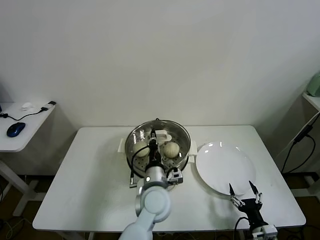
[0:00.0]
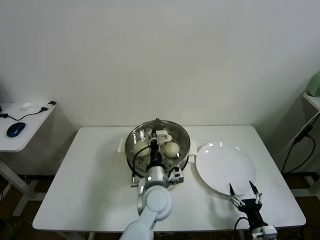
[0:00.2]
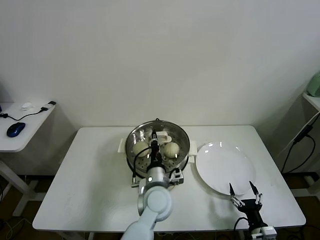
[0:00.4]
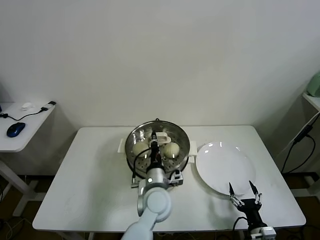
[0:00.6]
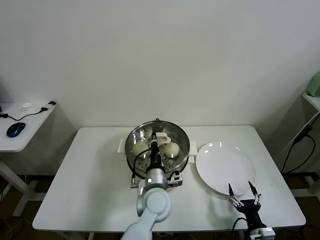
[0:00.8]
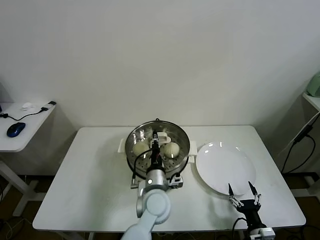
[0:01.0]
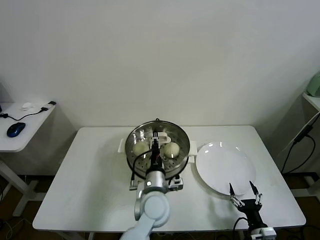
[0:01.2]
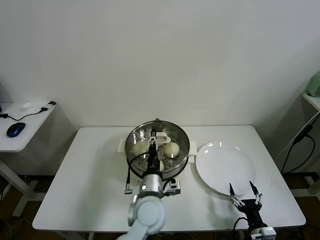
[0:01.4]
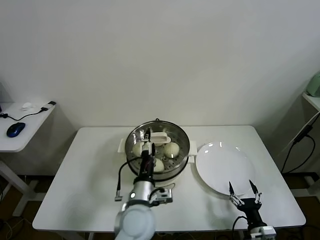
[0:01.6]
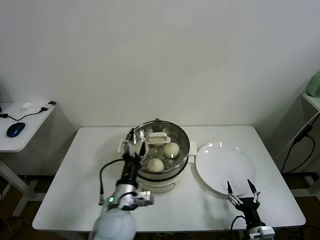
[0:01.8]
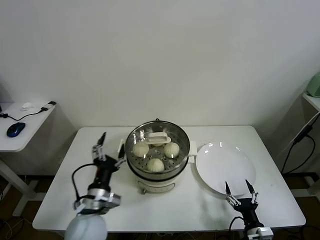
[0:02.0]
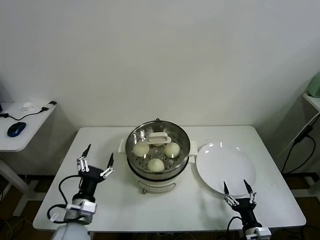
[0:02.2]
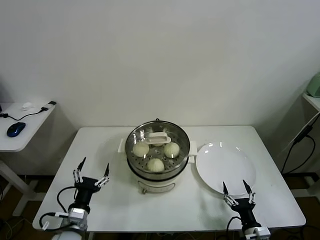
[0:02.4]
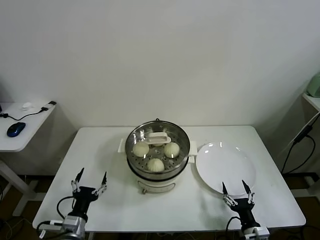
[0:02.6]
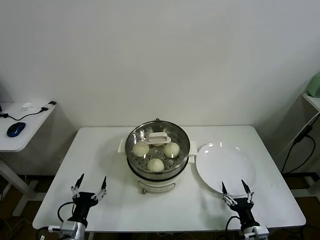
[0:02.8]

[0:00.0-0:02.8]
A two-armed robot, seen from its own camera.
Task of the whole recording: take steamed baozi put them in steamer.
0:00.0 to 0:01.4: The left gripper opens its fingers.
0:01.4 to 0:02.8: The left gripper is displaced to the left and backward by roughly 30 cm, and opens its fingers.

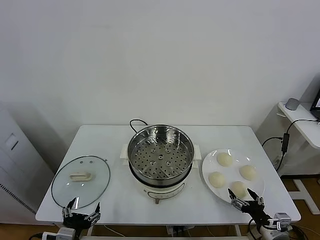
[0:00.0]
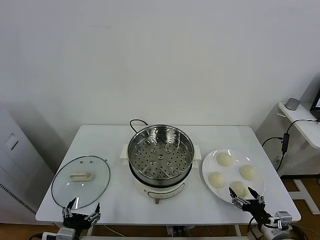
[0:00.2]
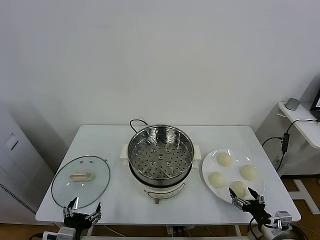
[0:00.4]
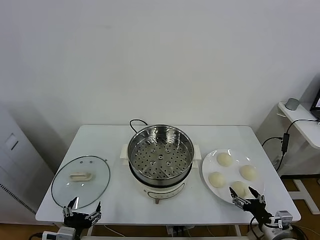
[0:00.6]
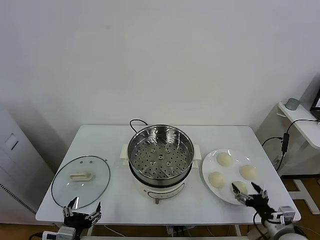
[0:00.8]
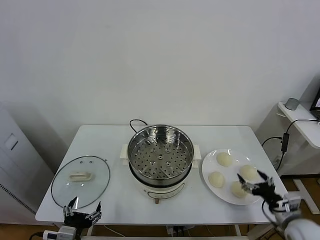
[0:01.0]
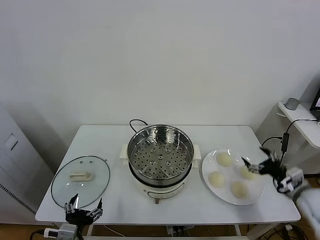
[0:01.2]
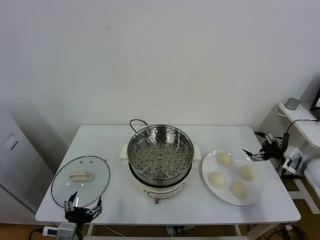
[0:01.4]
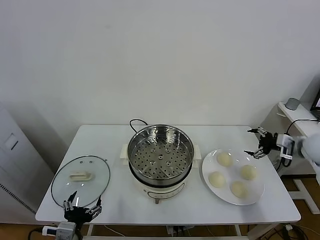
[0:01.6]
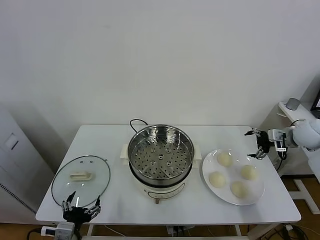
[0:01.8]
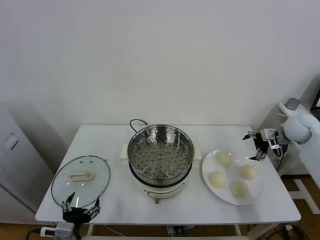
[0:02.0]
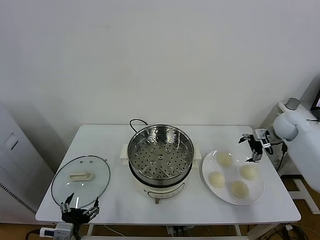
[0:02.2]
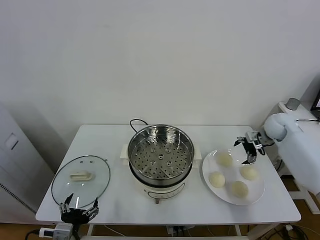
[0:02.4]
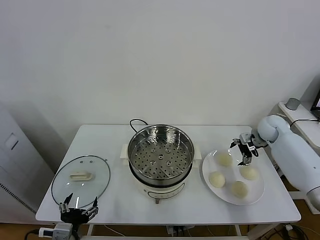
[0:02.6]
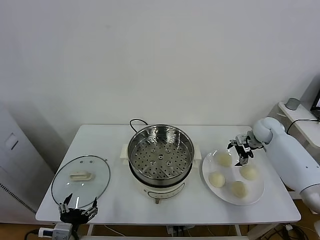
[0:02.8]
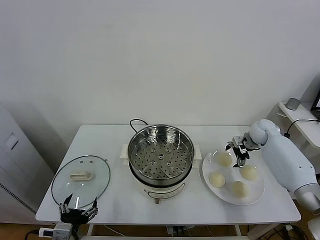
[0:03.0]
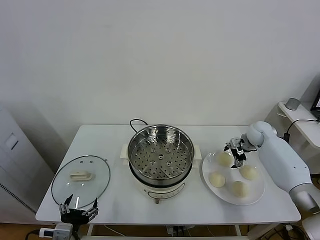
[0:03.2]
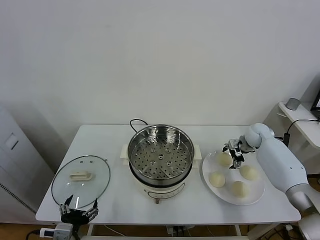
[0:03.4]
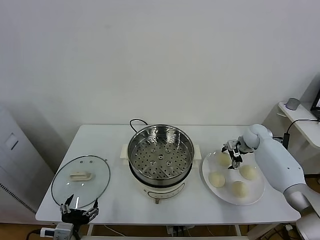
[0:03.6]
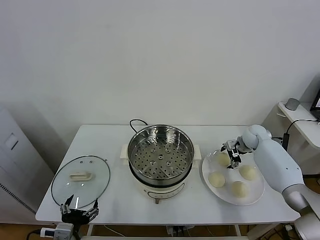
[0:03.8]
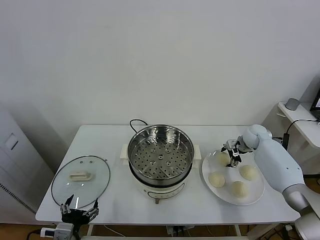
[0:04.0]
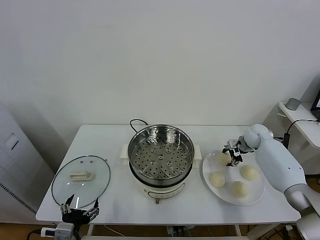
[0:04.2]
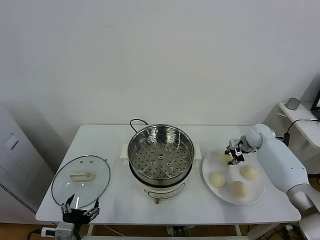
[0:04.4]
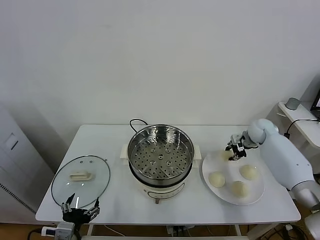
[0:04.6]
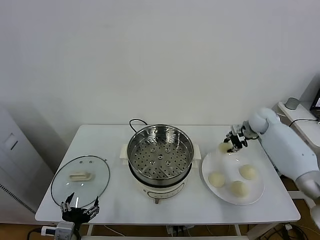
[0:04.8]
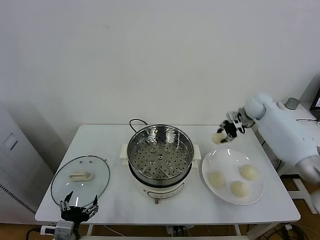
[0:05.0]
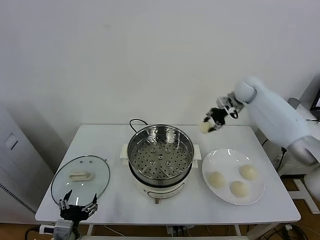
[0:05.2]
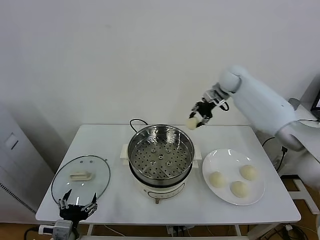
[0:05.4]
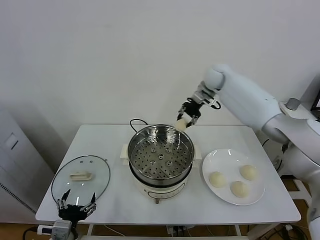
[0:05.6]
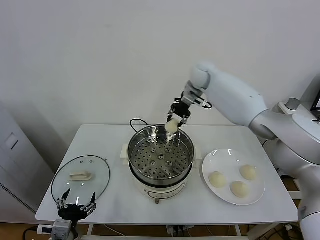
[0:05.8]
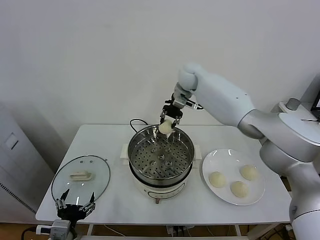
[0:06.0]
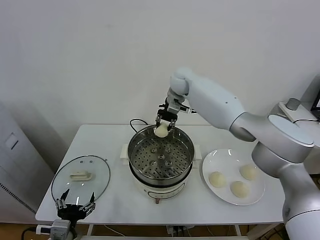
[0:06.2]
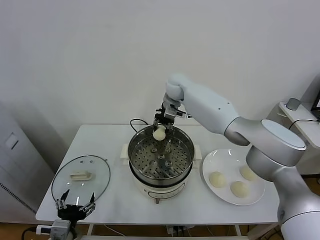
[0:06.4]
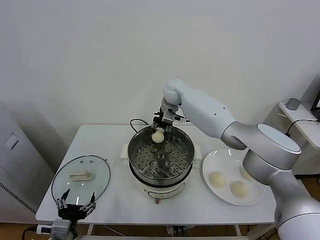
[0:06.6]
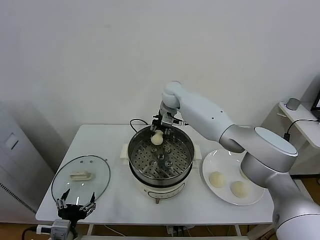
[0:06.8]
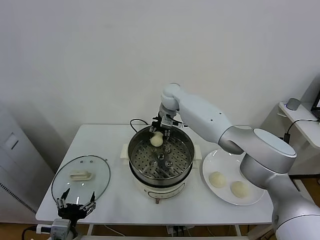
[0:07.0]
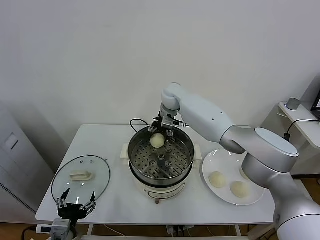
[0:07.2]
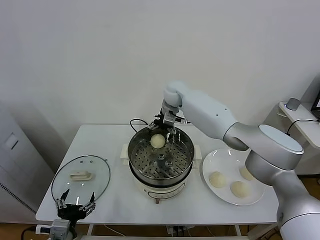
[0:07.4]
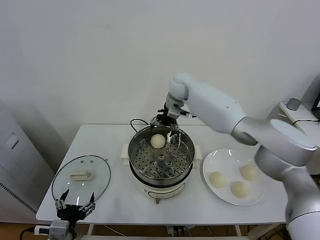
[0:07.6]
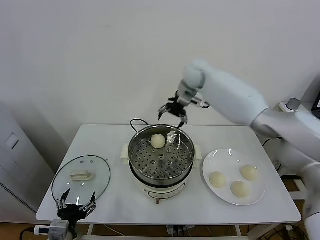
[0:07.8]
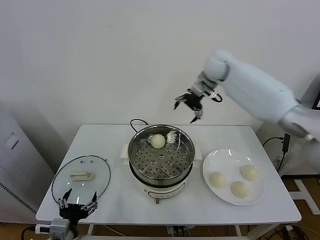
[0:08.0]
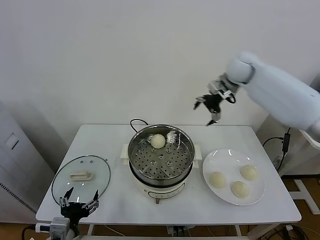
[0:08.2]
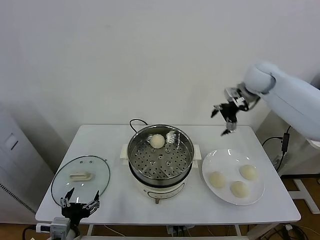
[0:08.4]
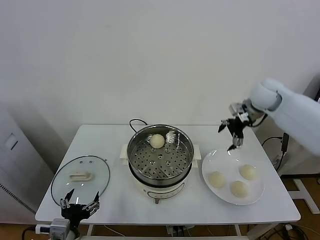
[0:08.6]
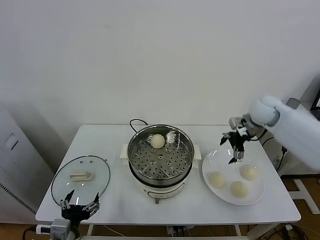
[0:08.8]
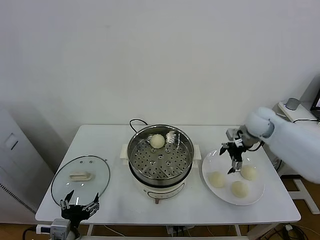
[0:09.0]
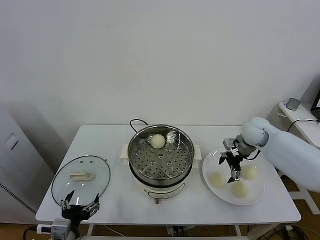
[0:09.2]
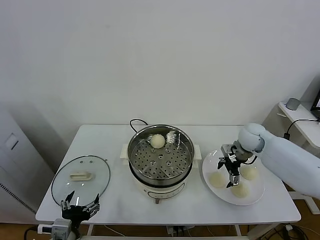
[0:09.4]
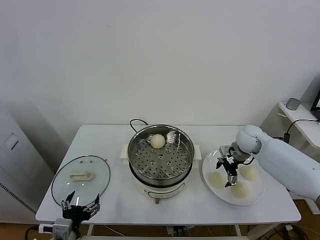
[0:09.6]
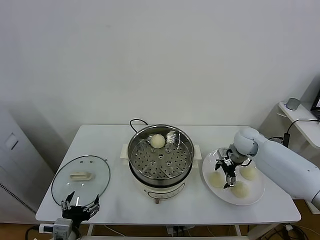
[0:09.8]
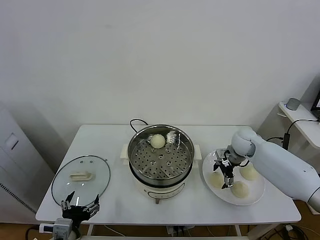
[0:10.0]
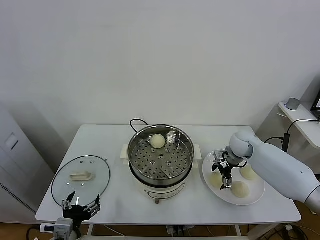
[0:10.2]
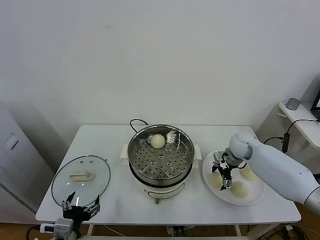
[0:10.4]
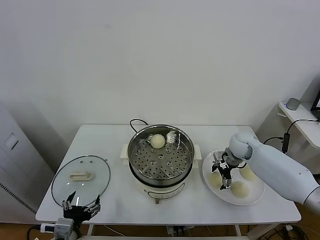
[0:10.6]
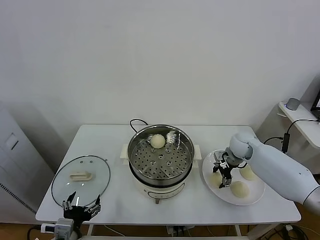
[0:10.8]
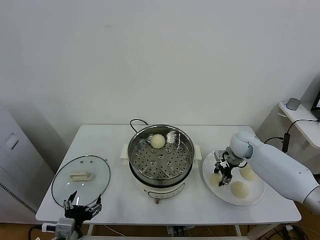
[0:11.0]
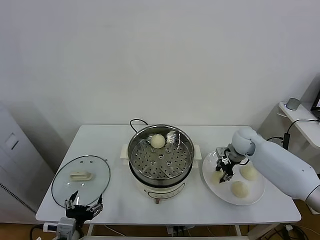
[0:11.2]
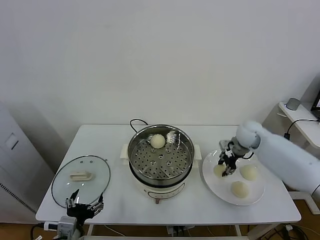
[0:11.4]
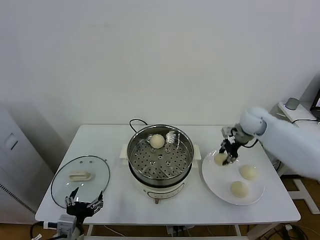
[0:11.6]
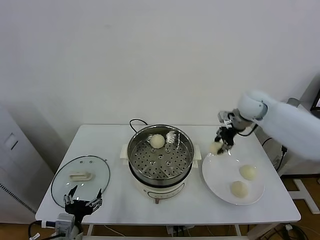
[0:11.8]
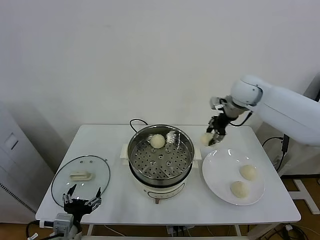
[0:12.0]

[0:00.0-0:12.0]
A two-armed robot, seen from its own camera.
Task of the whole recording: take steamed baozi put them in steamer.
Step, 0:00.0 to 0:04.4: Grasp the baozi in the plate with right gripper.
Step, 0:04.6 to 0:07.4: Place the baozi on the steamer with right gripper.
Step, 0:07.6 to 0:11.0: Grasp the baozi in the plate with right gripper.
0:01.6 to 0:03.0: The right gripper goes some 20 cm forward, to the left and downward.
0:03.0 to 0:04.4: The right gripper closes.
0:04.4 to 0:06.0: The right gripper travels to the left and upward by some 35 cm.
0:06.0 to 0:07.6: The right gripper opens.
0:07.6 to 0:09.0: The right gripper is displaced to the right and backward by approximately 30 cm.
0:09.0 to 0:10.4: The right gripper travels downward by approximately 10 cm.
0:10.4 to 0:12.0: The right gripper heads upward, covering some 20 cm, and closes its fingers.

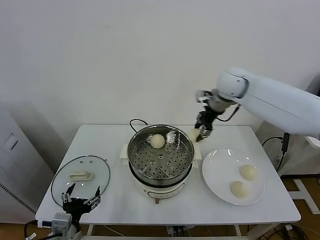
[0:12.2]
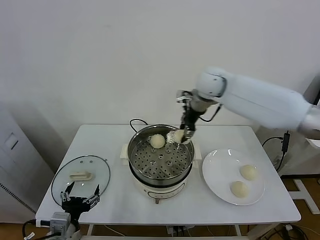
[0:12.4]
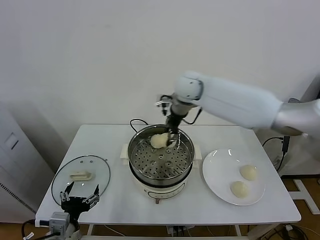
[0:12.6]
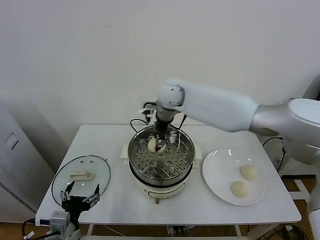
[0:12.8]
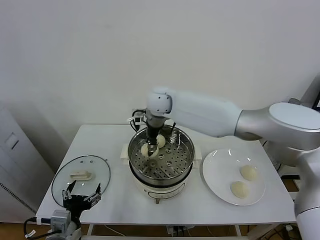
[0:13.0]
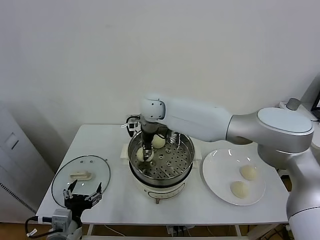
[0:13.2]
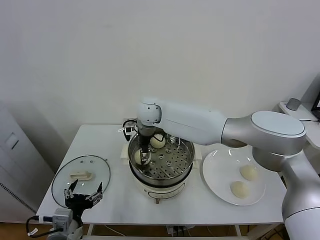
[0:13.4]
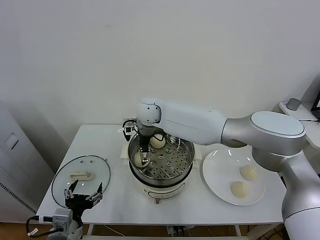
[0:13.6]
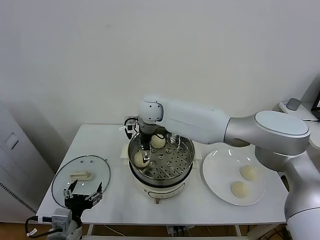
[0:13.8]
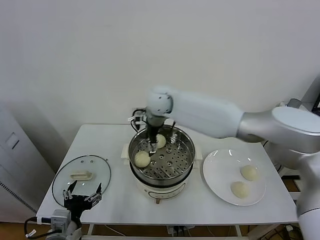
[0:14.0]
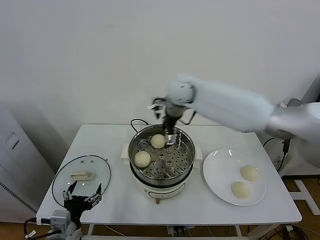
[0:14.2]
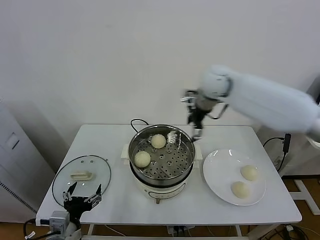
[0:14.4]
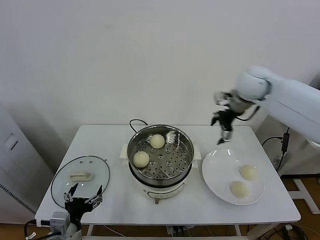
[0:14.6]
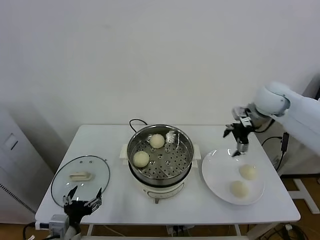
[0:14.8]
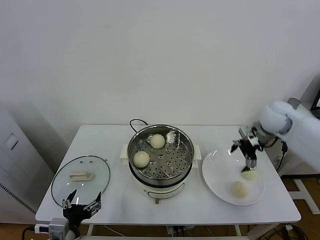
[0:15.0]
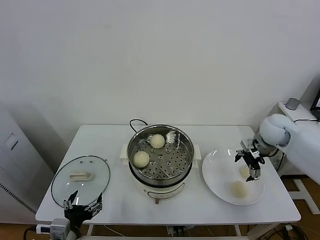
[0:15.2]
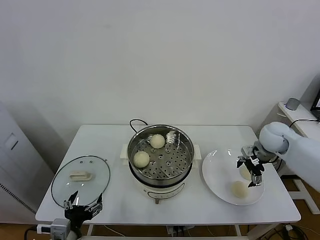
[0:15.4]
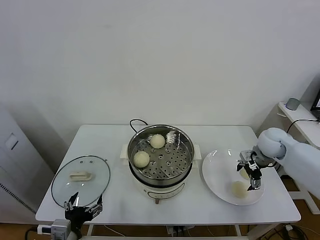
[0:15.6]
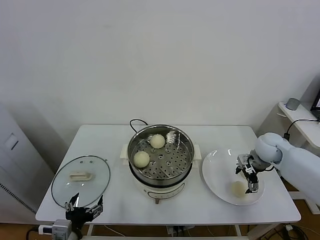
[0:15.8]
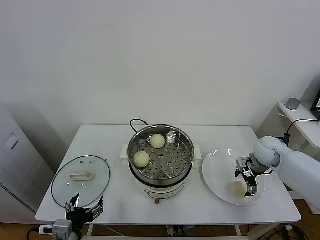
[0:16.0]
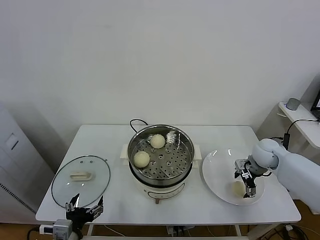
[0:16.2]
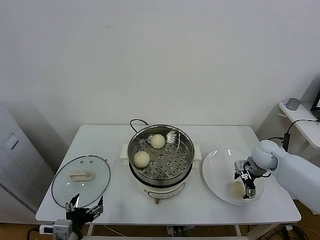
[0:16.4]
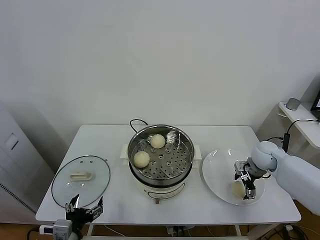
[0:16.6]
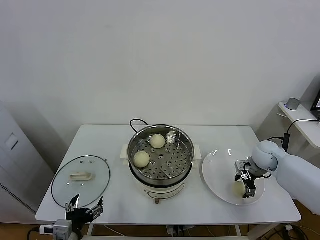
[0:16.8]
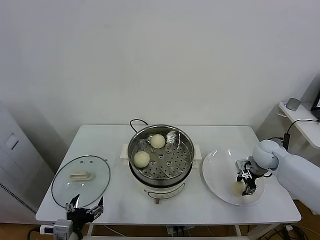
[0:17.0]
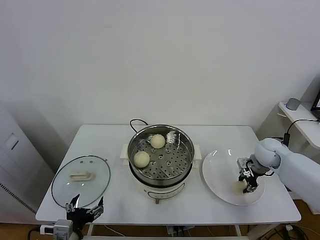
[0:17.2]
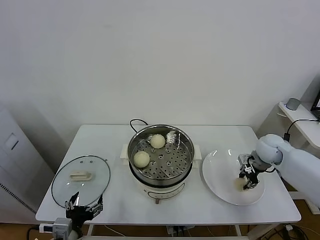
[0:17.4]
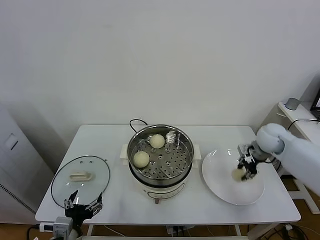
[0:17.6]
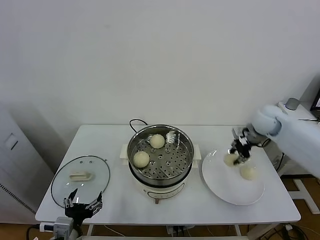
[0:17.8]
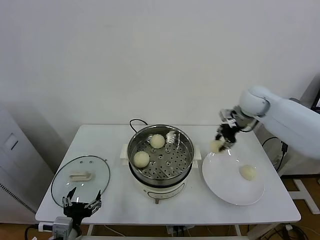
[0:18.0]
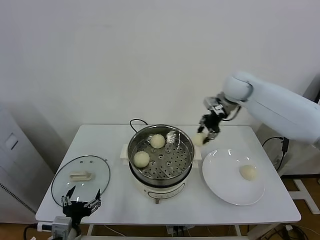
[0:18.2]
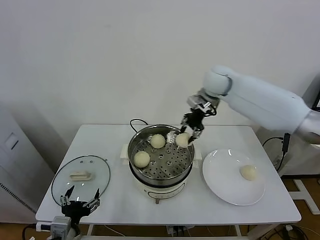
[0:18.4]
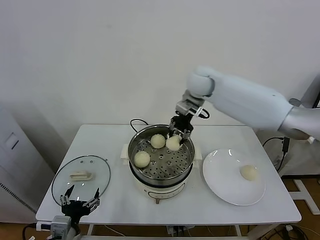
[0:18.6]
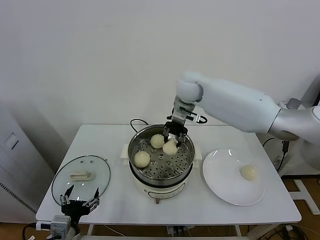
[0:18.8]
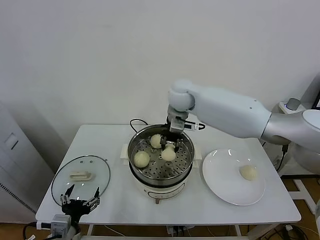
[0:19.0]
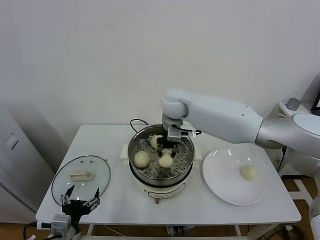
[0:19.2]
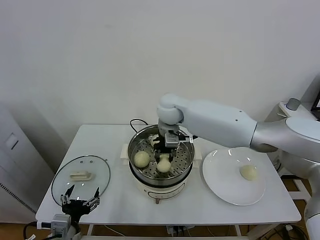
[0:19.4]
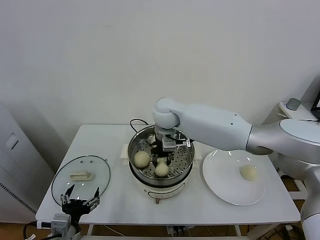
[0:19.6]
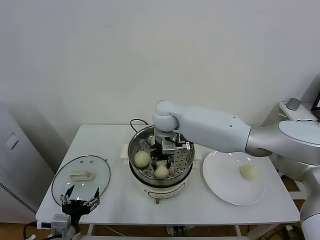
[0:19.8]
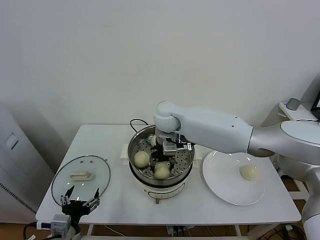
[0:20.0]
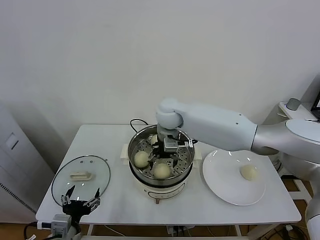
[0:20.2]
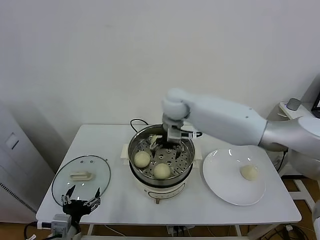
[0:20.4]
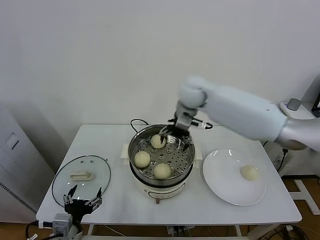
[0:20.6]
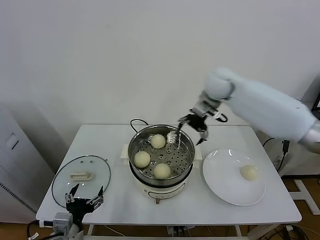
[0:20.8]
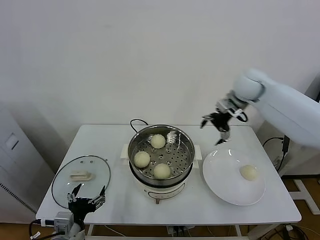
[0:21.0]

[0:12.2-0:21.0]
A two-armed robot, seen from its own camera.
Task of the whole recording: take steamed baozi put them in steamer.
Step, 0:12.2 to 0:13.8: Place the baozi on the steamer with right gripper.
Step, 0:14.0 to 0:17.2: Grasp the baozi in the plate with right gripper.
Step, 0:17.4 to 0:20.4: Place the baozi on the steamer with right gripper.
0:12.2 to 0:13.6: The right gripper shifts roughly 25 cm to the left, and opens its fingers.
0:13.6 to 0:15.2: The right gripper goes some 40 cm to the right.
0:15.2 to 0:16.6: The right gripper heads downward, covering approximately 10 cm.
0:16.6 to 0:18.0: The right gripper travels upward and forward by roughly 20 cm, and closes up.
0:18.0 to 0:19.6: The right gripper shifts approximately 30 cm to the left.
0:19.6 to 0:21.0: The right gripper moves to the right, about 25 cm, and opens.
